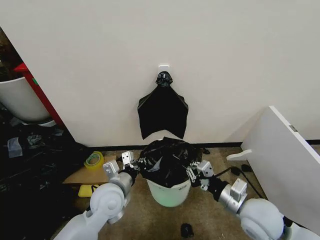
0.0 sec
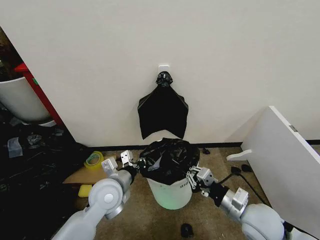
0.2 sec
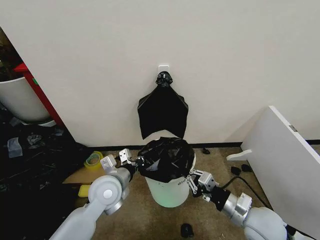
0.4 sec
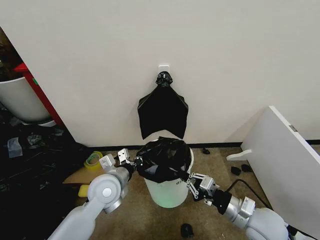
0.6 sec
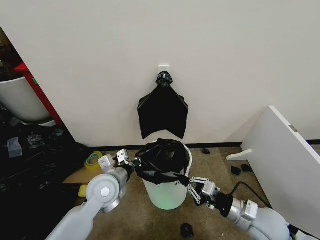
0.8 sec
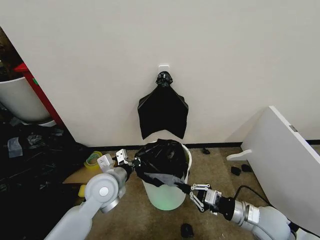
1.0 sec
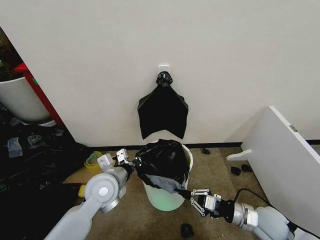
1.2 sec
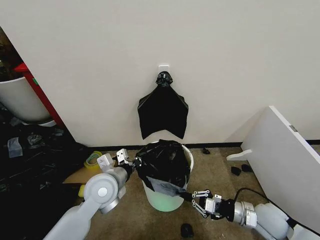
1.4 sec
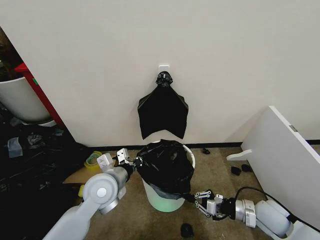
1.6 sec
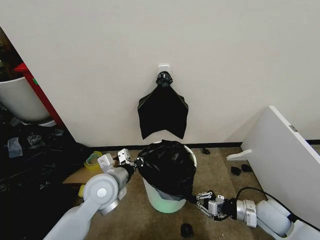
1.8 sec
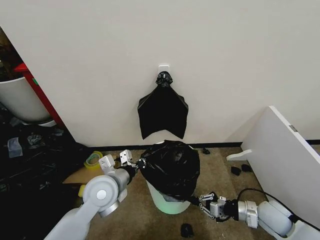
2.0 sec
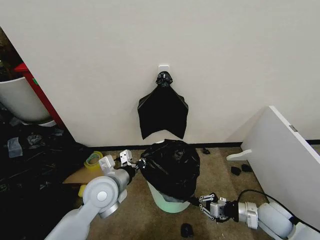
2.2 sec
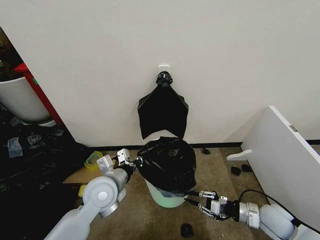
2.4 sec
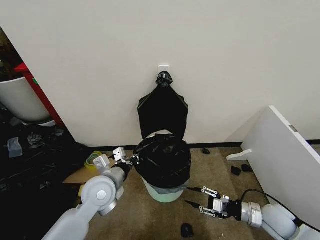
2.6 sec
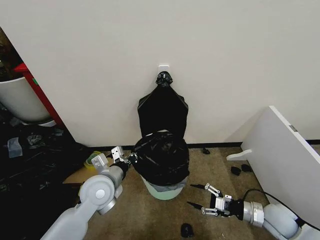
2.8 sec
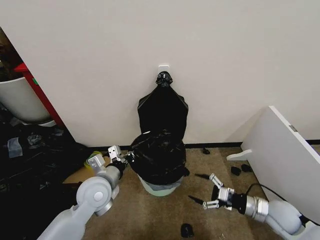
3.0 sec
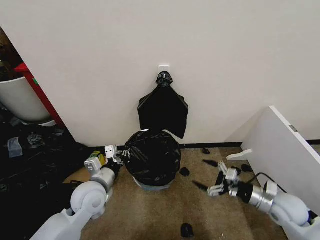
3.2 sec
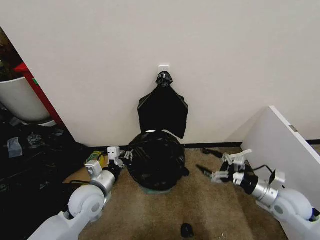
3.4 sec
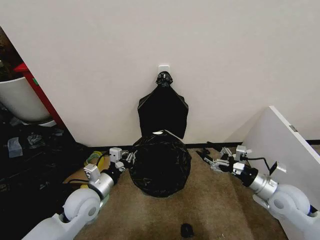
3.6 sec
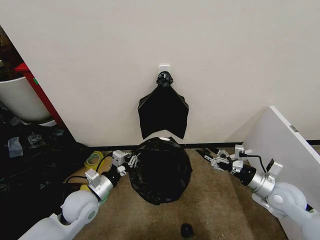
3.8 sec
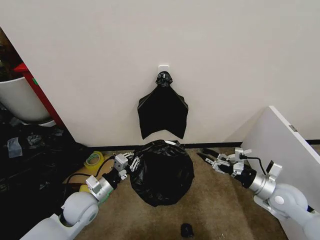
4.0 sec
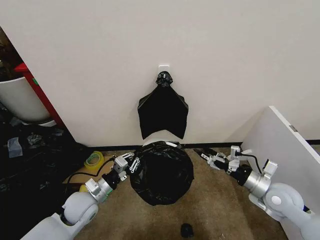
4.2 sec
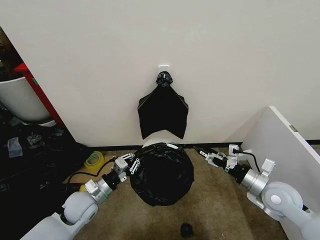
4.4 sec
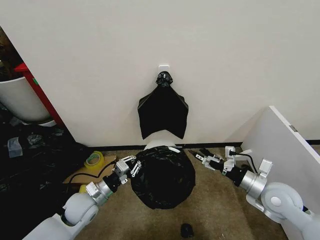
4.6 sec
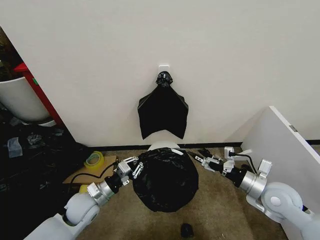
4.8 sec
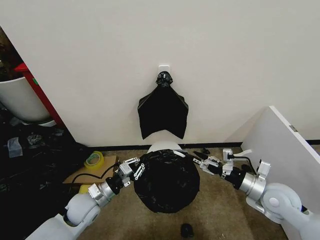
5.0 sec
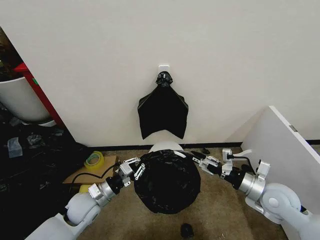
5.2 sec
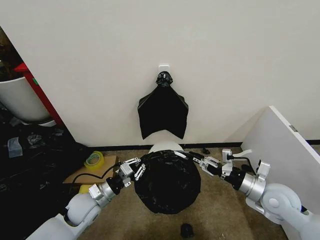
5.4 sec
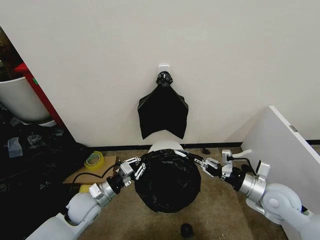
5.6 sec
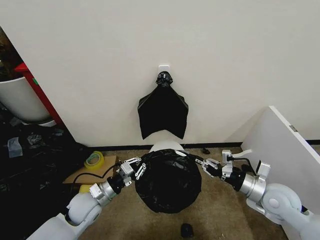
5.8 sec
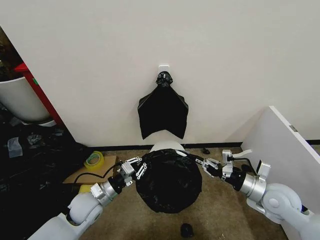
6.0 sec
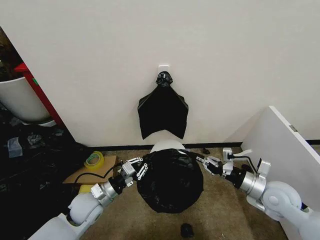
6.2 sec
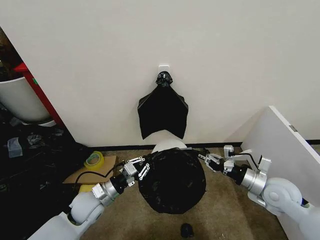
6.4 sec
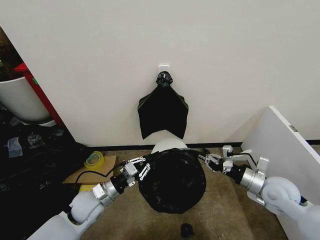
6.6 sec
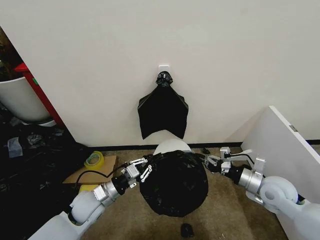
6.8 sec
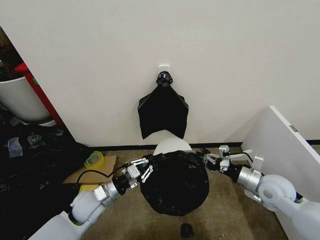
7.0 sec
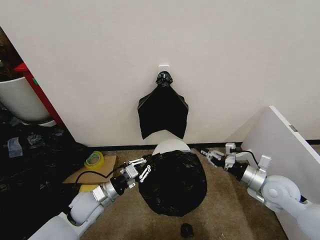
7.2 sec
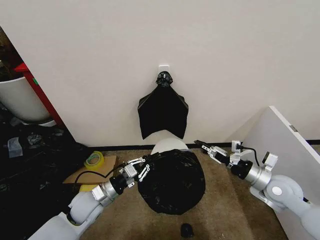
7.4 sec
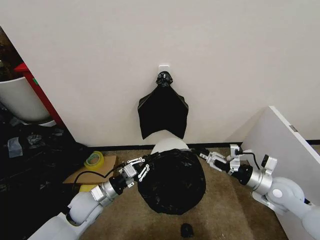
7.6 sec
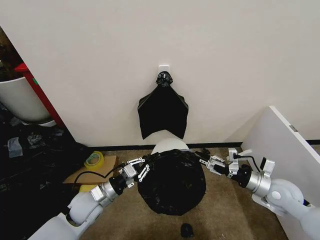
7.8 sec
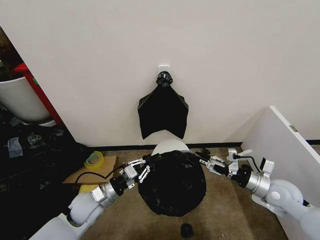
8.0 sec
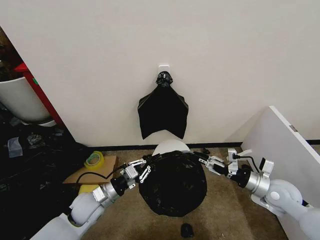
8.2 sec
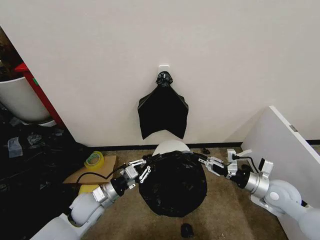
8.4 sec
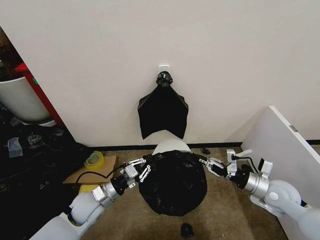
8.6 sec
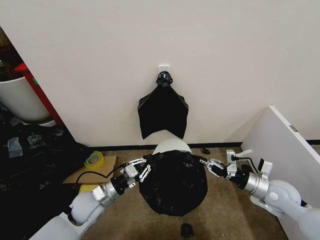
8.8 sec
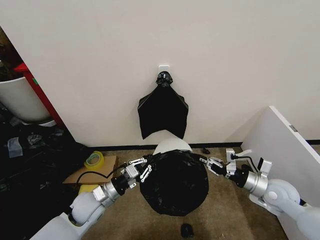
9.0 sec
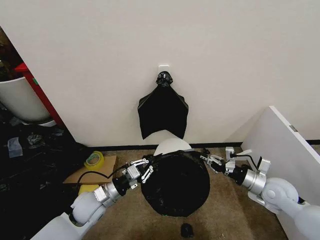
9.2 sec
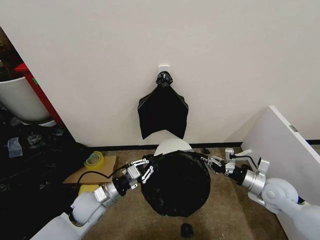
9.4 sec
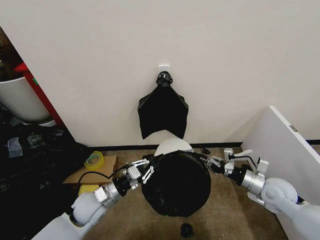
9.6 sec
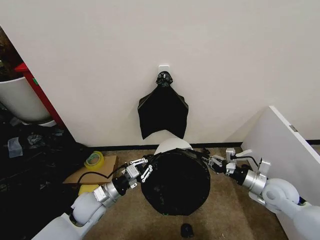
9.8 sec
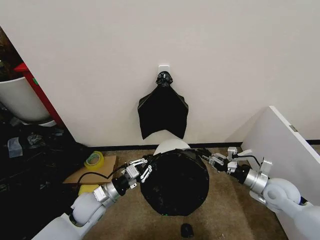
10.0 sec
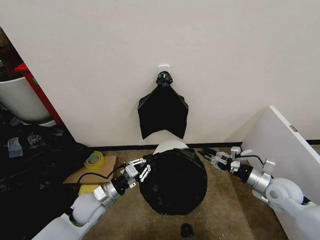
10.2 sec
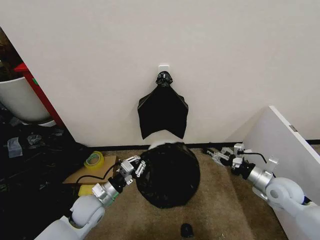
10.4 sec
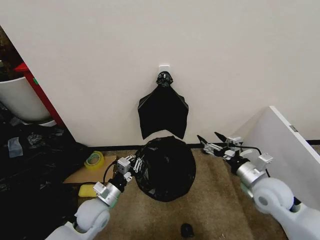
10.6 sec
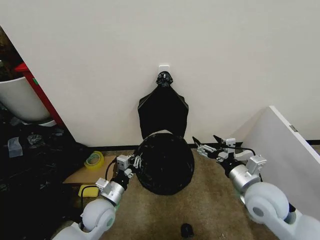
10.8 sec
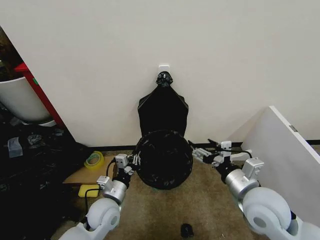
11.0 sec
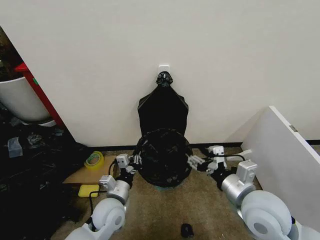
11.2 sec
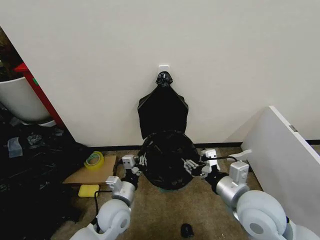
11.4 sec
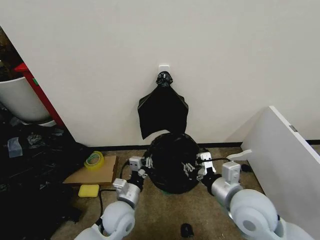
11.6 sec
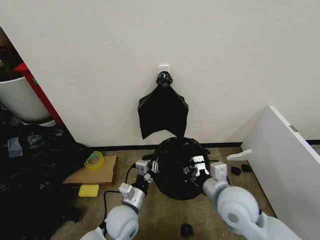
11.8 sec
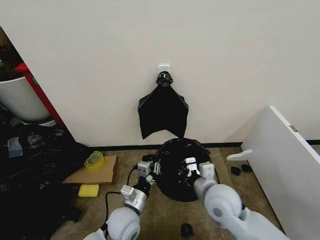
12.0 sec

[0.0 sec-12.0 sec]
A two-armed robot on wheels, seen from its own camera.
Task of the whole recording: Place the garbage bag over the trash bin.
0.0 sec to 1.6 sec: The right gripper goes roughly 15 cm downward and to the right.
1.6 sec to 3.0 sec: The right gripper opens.
3.0 sec to 4.4 sec: The left gripper heads downward and to the left, covering some 10 cm, while the right gripper moves upward, some 10 cm.
4.4 sec to 6.0 sec: The right gripper closes up.
6.0 sec to 7.6 sec: The right gripper opens its fingers.
7.6 sec to 9.0 sec: The right gripper closes.
9.0 sec to 10.4 sec: The right gripper opens its fingers.
10.4 sec to 12.0 sec: The right gripper shifts roughly 20 cm to the left, and closes up; the left gripper shifts roughly 10 cm to the right.

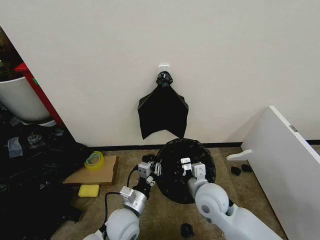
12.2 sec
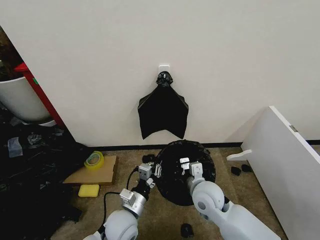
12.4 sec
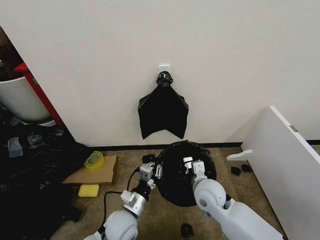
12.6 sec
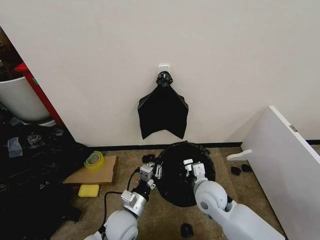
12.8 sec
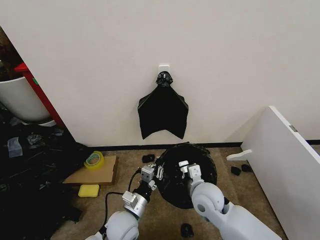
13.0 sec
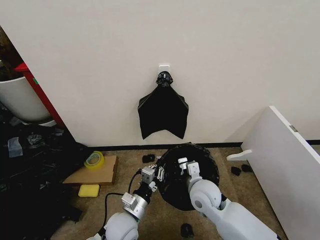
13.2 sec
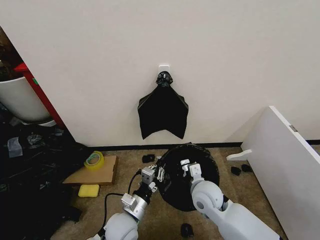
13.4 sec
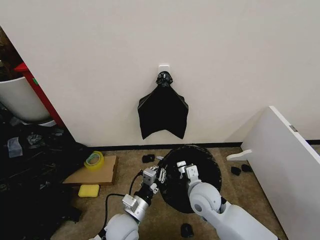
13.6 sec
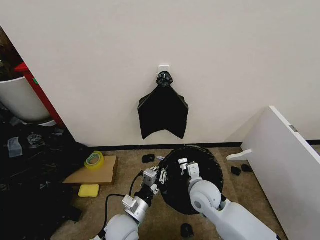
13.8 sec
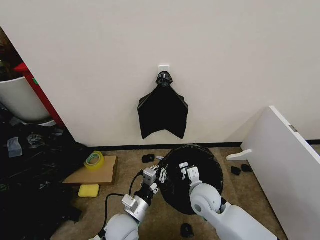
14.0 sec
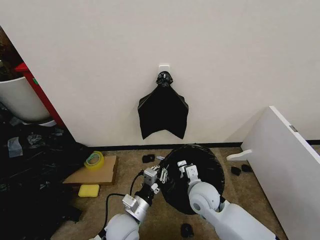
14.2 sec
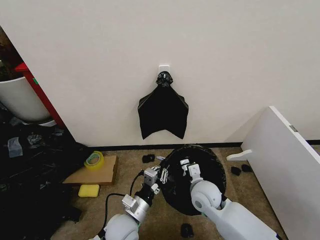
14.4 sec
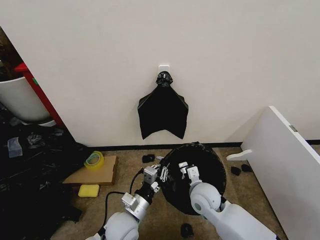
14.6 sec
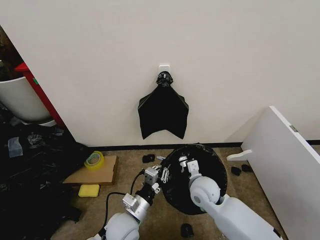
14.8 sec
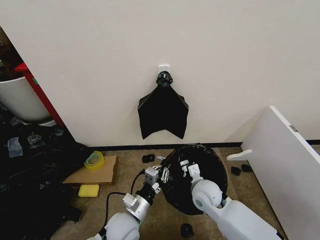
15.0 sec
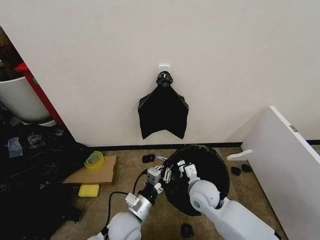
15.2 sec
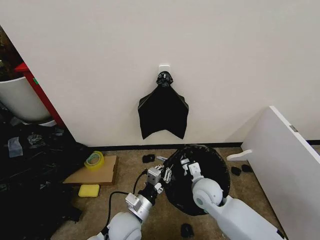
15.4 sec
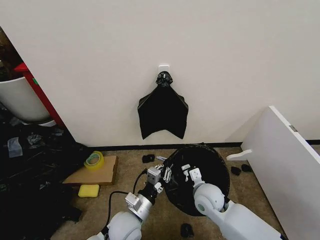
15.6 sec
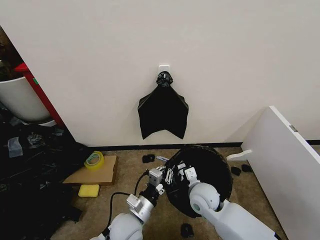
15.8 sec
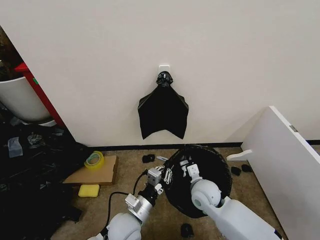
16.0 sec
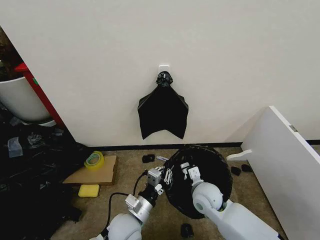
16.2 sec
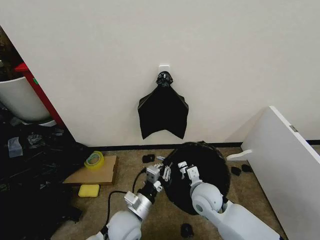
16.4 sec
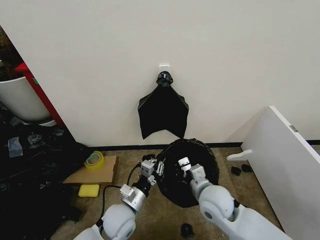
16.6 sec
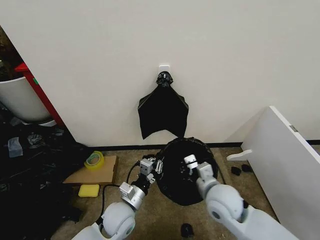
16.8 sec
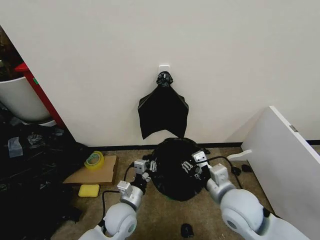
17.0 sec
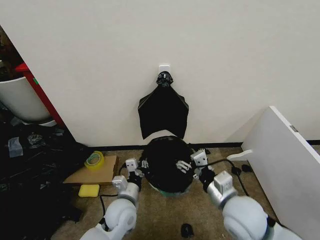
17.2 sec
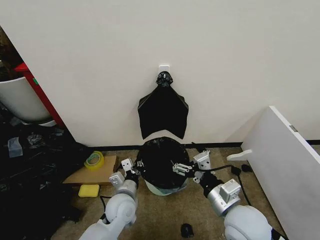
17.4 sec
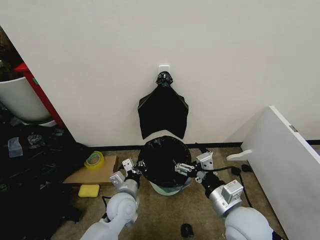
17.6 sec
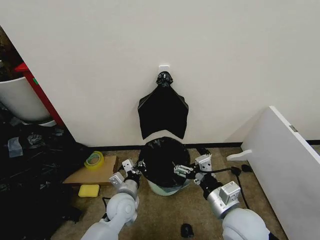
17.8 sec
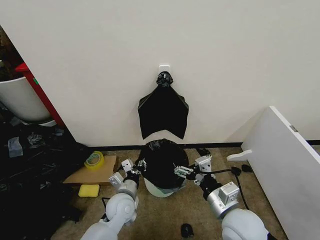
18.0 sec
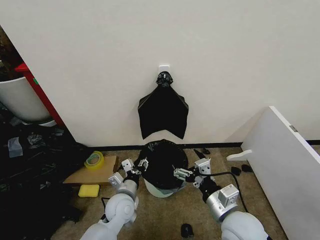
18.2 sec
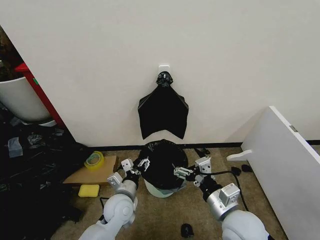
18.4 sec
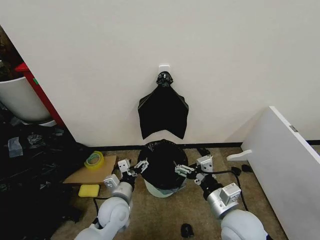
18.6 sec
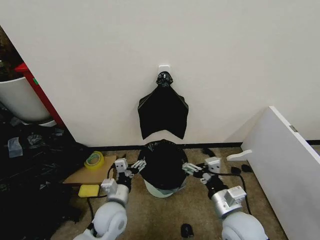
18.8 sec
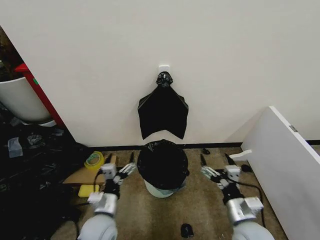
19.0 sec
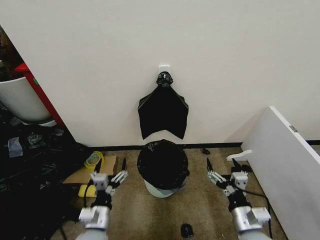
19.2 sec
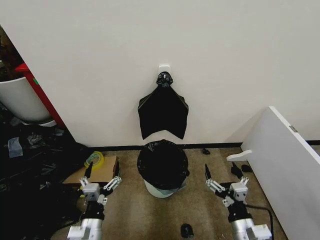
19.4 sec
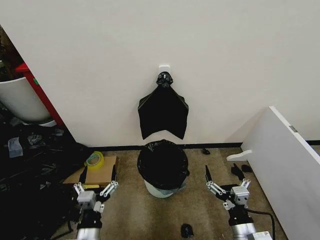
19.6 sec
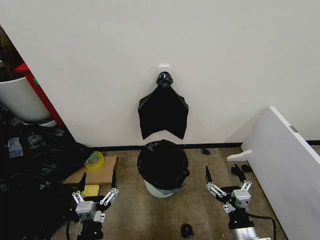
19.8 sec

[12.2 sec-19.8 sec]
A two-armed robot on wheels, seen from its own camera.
Task of the whole recording: Place the garbage bag over the trash bin.
12.2 sec to 15.2 sec: The grippers stay close to where they were, moving slightly.
15.2 sec to 16.8 sec: The grippers make only small movements.
16.8 sec to 18.2 sec: The right gripper heads backward, covering about 10 cm, and opens, while the left gripper shifts by about 5 cm, and opens up.
18.2 sec to 19.8 sec: The left gripper is displaced backward by roughly 20 cm, and opens up. The right gripper heads downward and backward, covering about 10 cm.

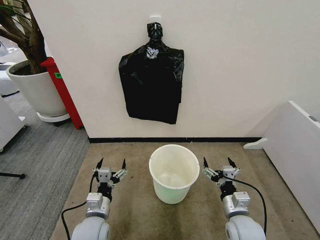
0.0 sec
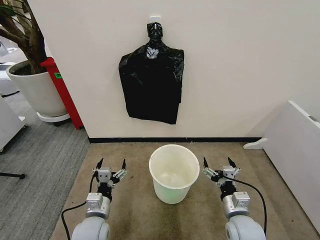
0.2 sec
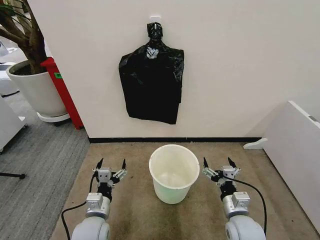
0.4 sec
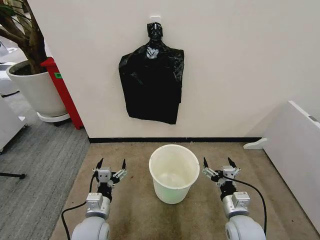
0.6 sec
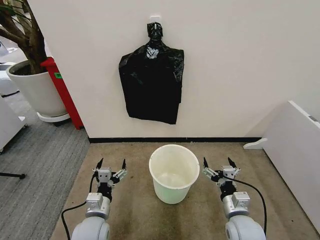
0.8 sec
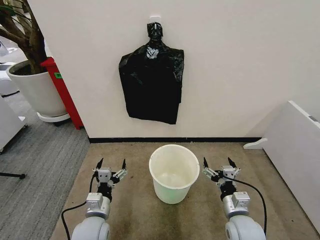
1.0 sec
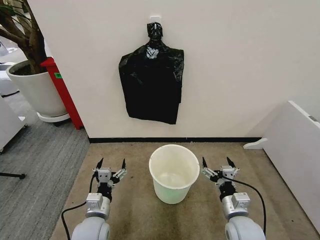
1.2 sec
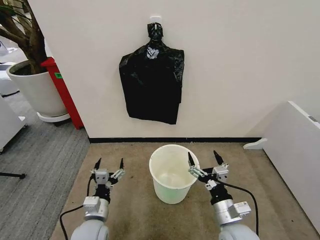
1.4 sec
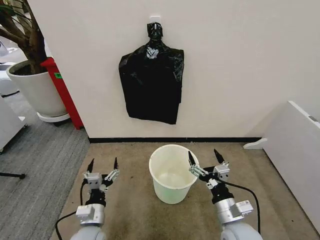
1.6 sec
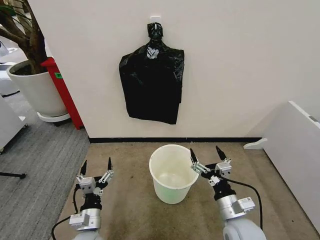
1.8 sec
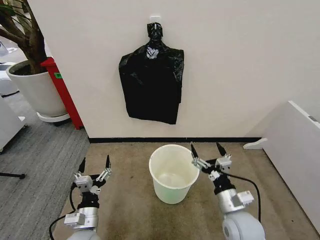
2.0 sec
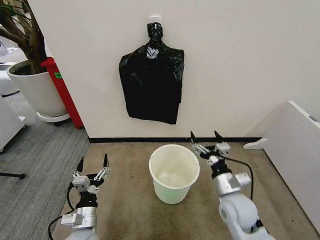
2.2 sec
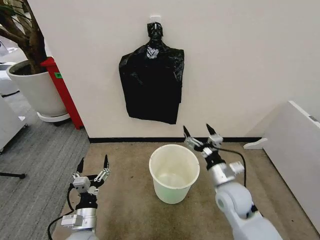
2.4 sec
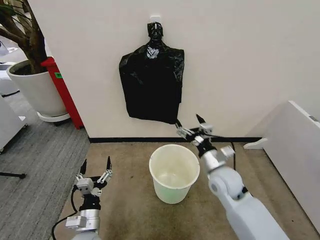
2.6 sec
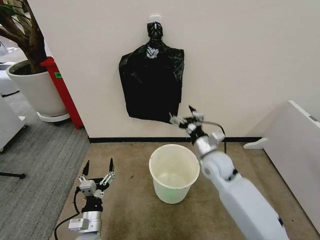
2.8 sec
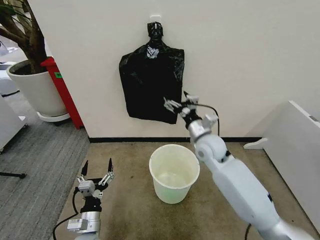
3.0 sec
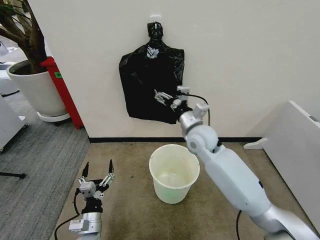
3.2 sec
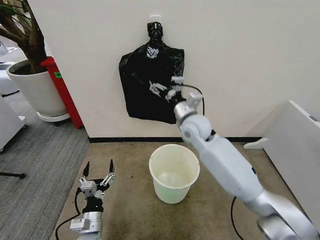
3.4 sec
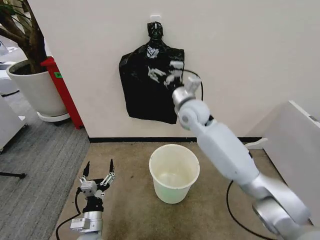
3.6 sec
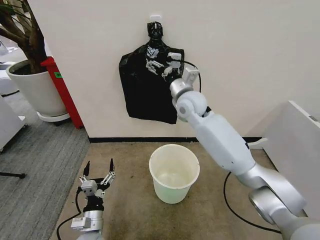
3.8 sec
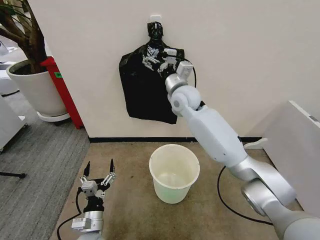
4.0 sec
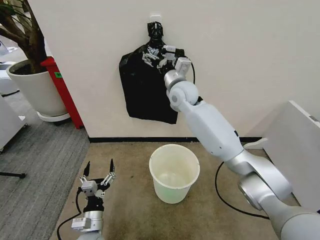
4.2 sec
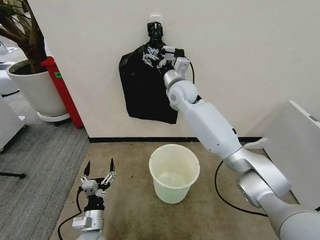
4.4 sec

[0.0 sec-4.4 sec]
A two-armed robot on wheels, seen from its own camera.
Task of the whole recording: Place the garbage bag over the trash bin.
1.4 sec to 3.0 sec: The right gripper moves forward and upward, some 25 cm.
3.0 sec to 4.4 sec: The right gripper travels forward, upward and to the left by about 20 cm.
